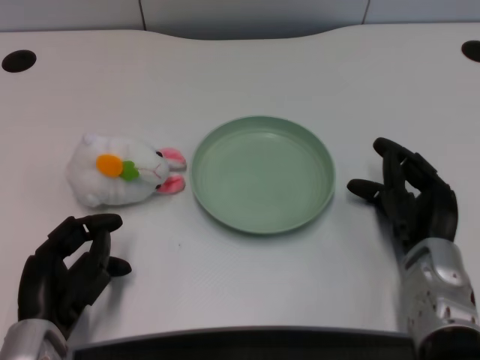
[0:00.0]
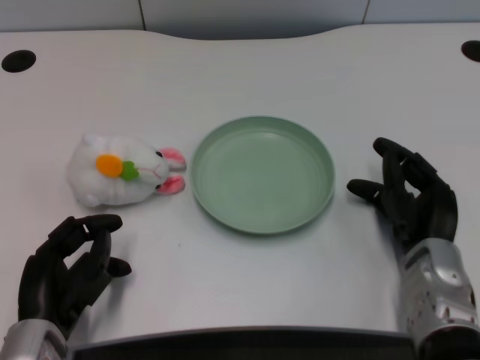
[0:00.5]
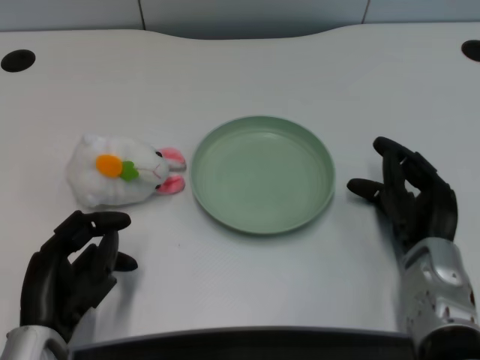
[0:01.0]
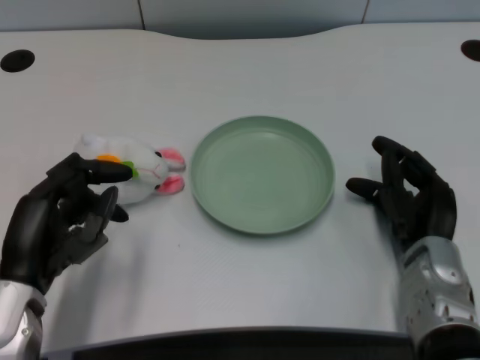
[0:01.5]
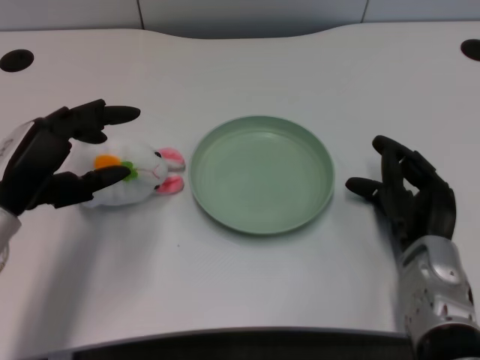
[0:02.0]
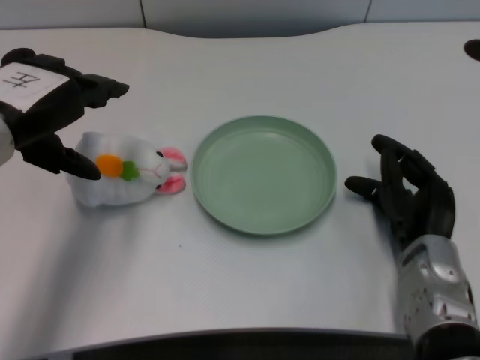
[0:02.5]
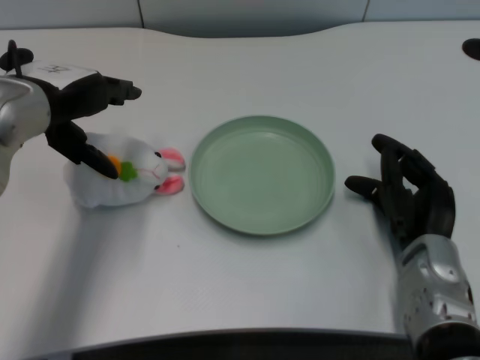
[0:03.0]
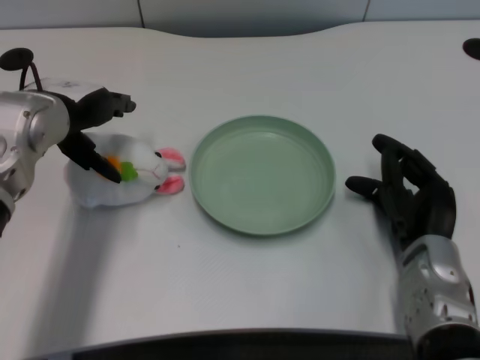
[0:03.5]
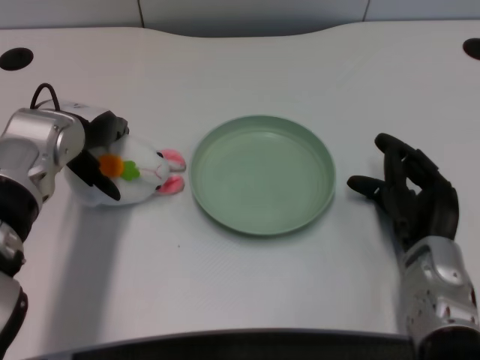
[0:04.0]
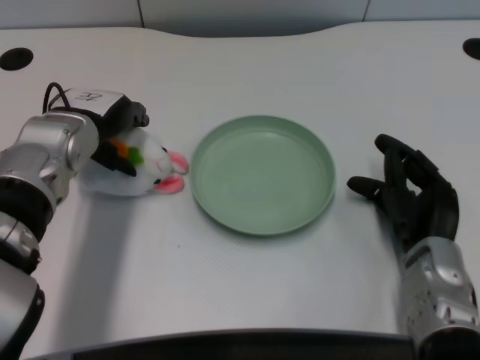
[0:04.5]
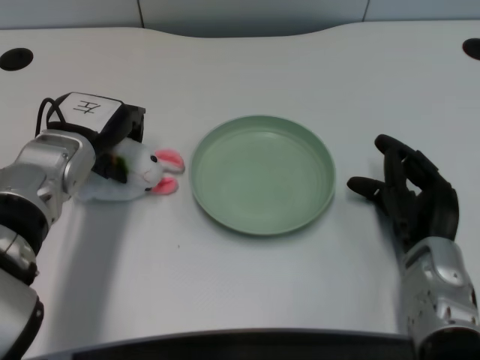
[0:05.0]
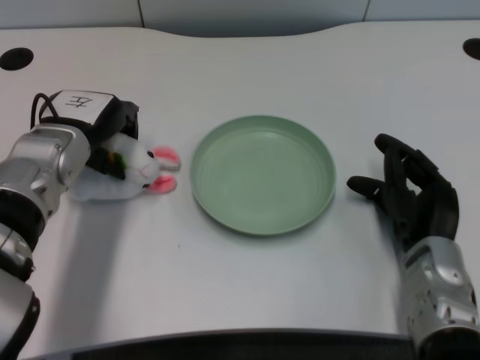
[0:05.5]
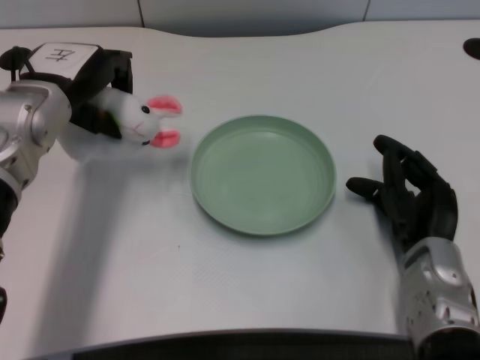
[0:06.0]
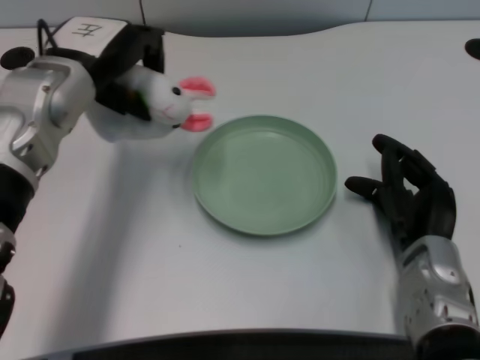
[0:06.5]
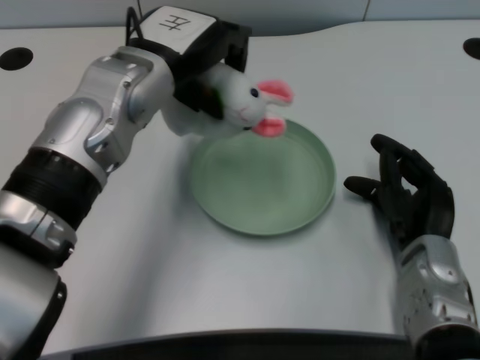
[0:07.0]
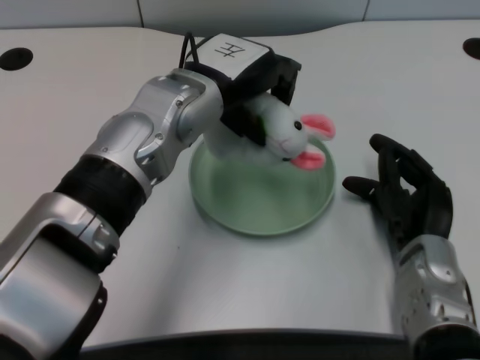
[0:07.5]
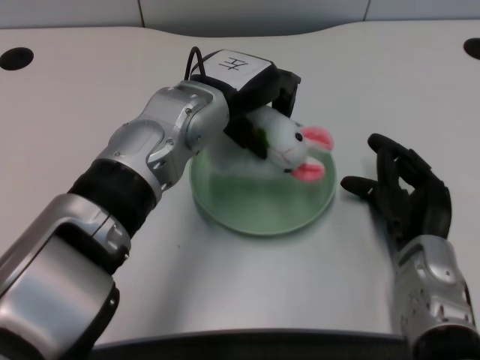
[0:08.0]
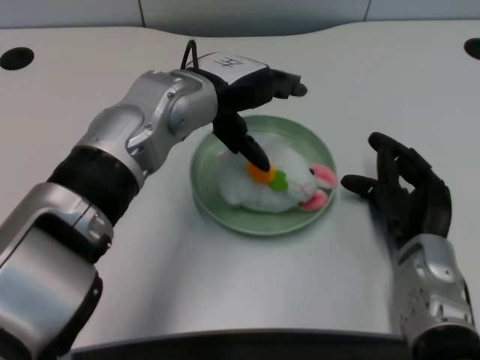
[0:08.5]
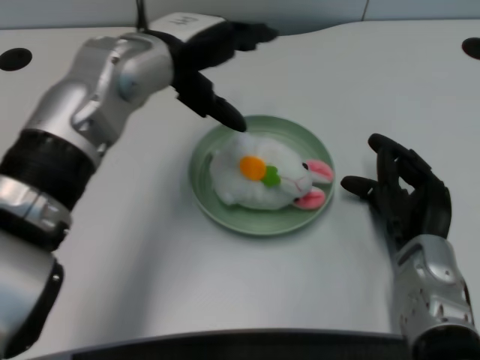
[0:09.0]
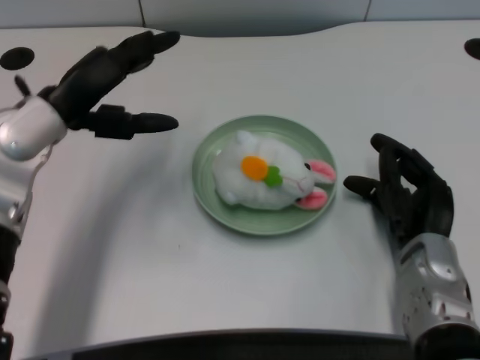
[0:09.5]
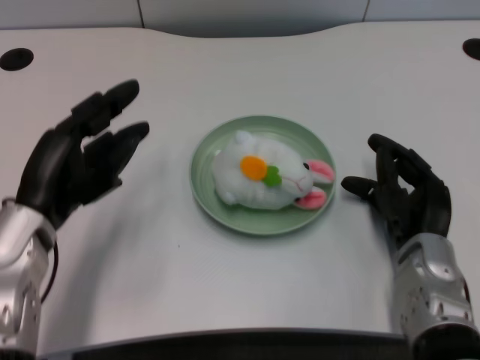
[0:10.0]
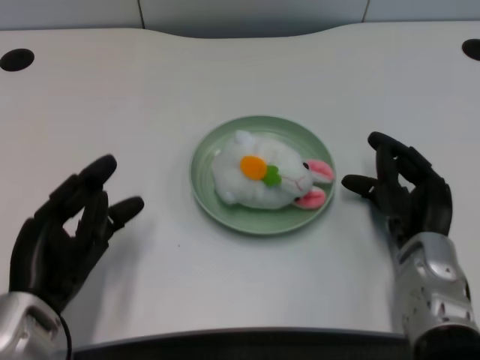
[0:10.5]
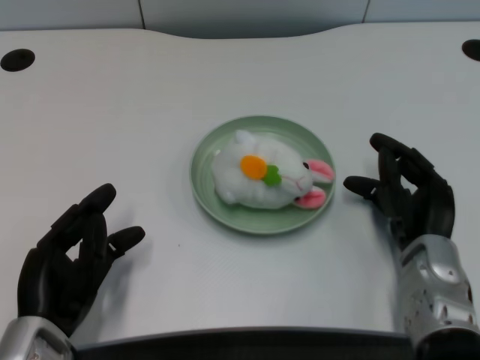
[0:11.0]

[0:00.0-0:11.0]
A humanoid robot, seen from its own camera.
Task of the whole recording: pick up the rabbit doll from the table and place it on the plate.
Step, 0:01.0 to 0:05.5: Grasp the rabbit doll with the left gripper.
Step, 0:06.0 to 0:08.0: Place the rabbit doll into the plate with the left gripper.
0:02.0 to 0:03.5: The left hand shifts approximately 10 cm forward.
0:03.5 to 0:05.5: The left hand is displaced downward by some 5 cm.
0:05.5 to 0:07.5: The left hand heads to the right and upward, covering about 15 cm.
0:07.5 to 0:09.0: The left hand moves about 5 cm.
0:09.0 to 0:11.0: The left hand shifts approximately 25 cm backward, downward and to the left.
